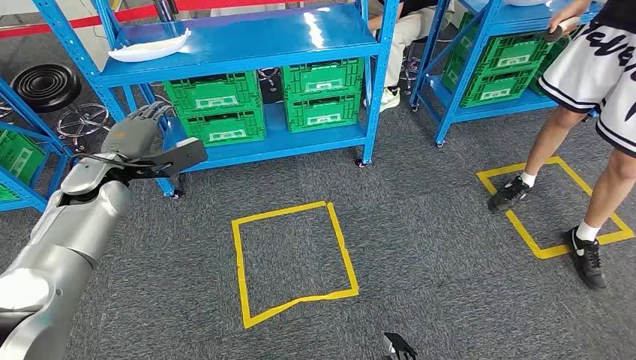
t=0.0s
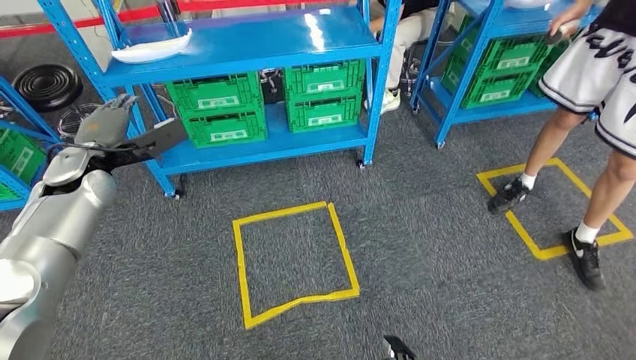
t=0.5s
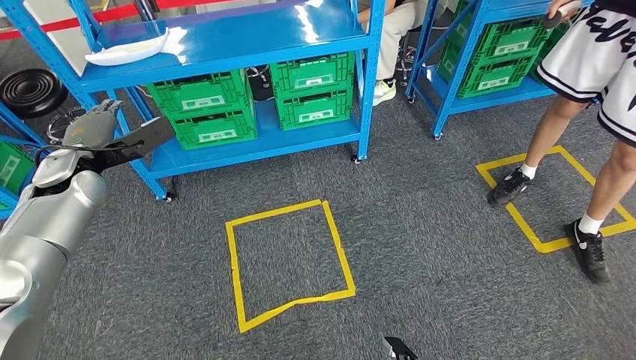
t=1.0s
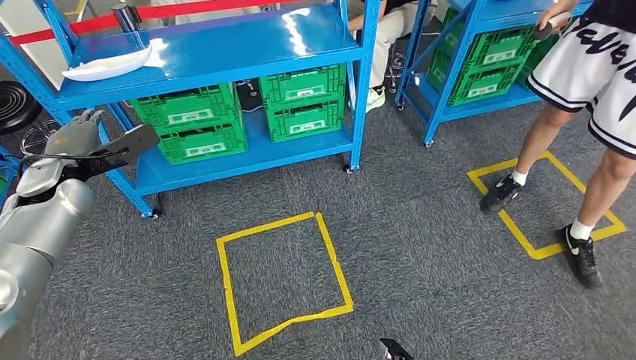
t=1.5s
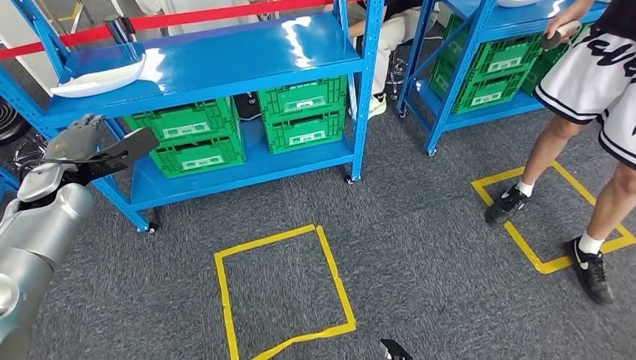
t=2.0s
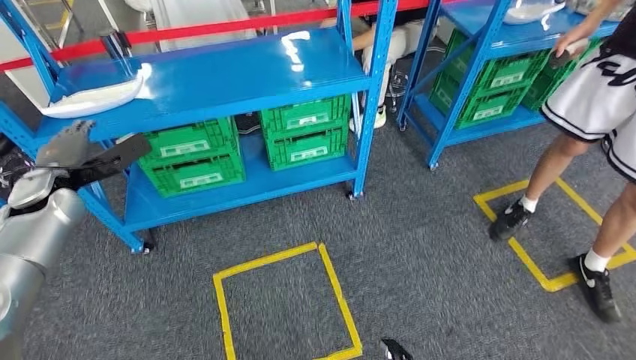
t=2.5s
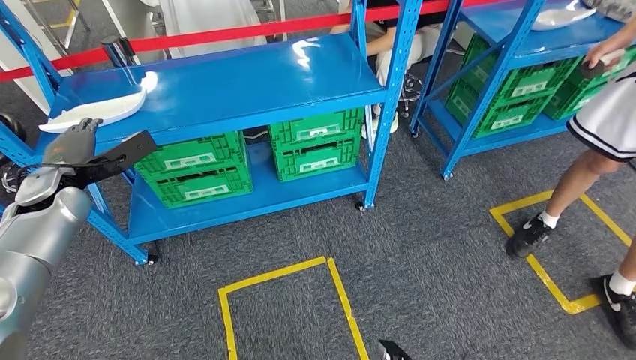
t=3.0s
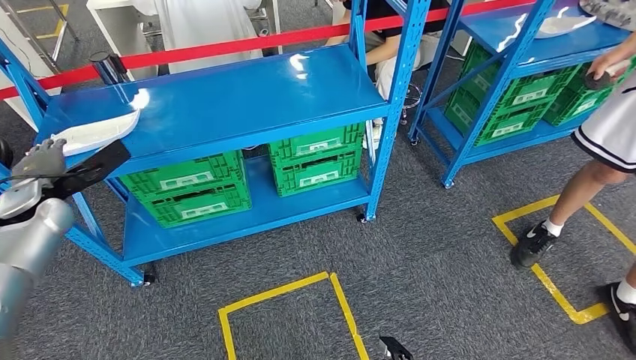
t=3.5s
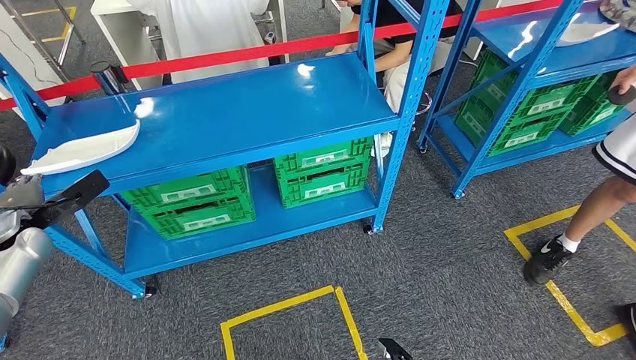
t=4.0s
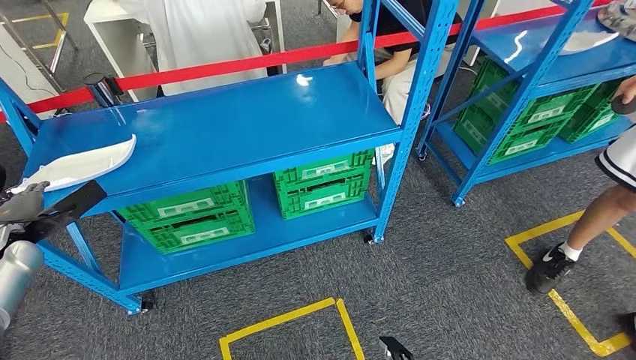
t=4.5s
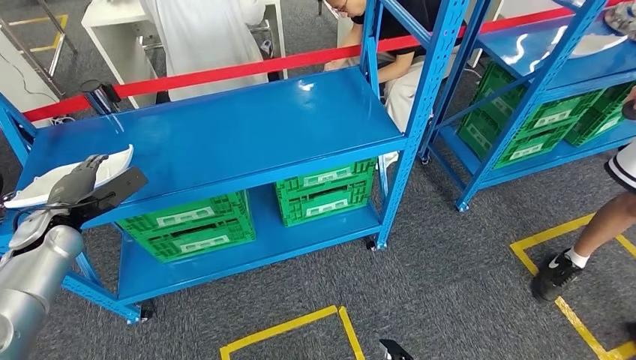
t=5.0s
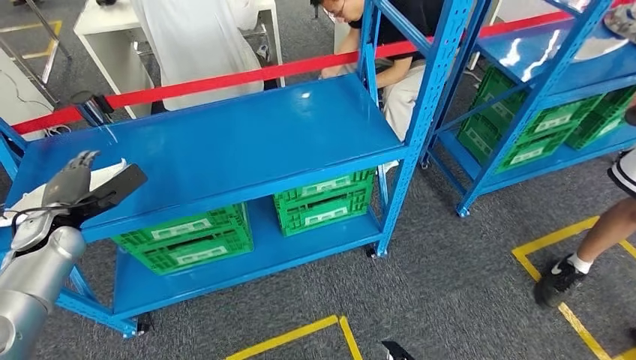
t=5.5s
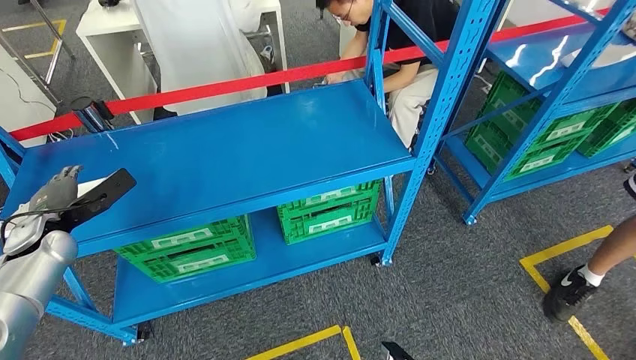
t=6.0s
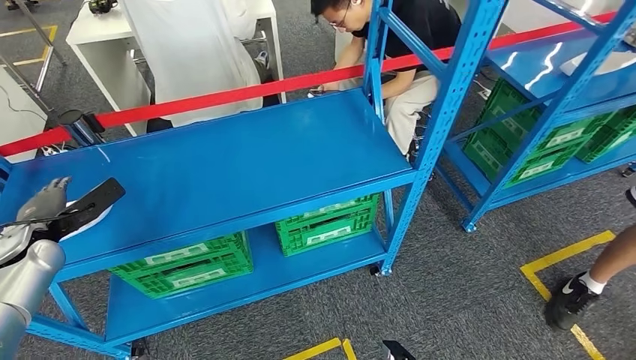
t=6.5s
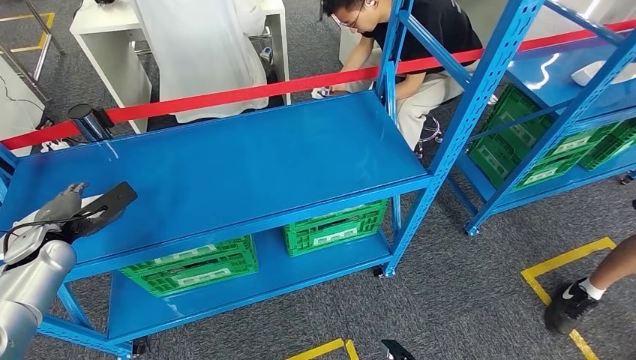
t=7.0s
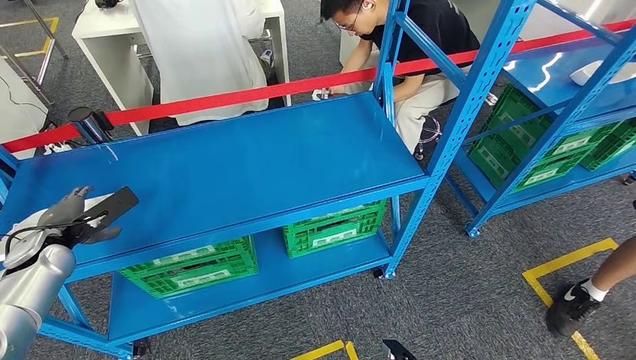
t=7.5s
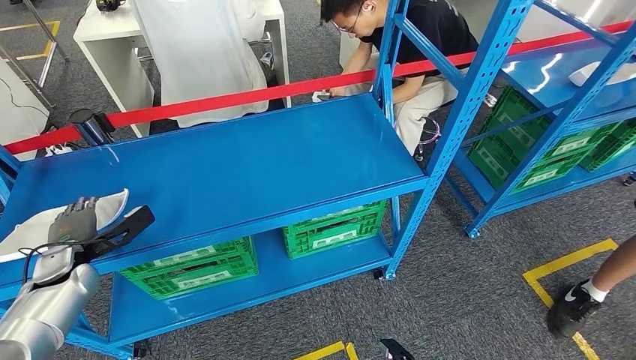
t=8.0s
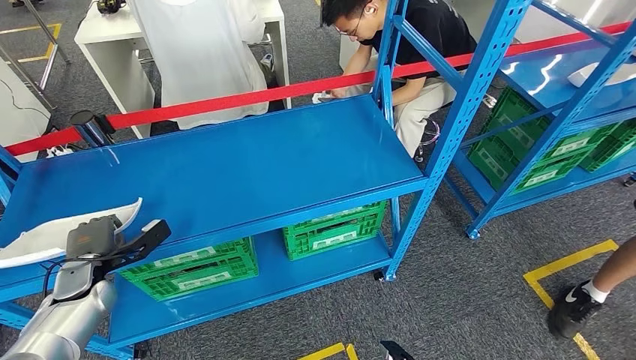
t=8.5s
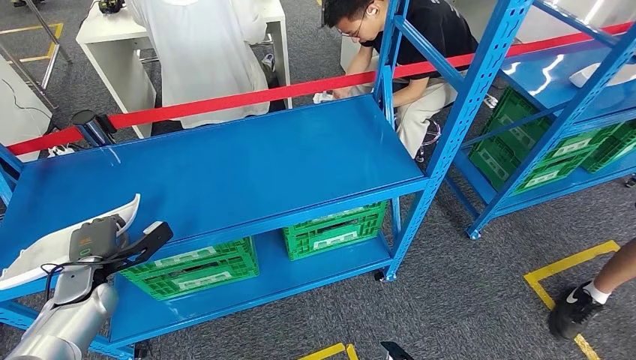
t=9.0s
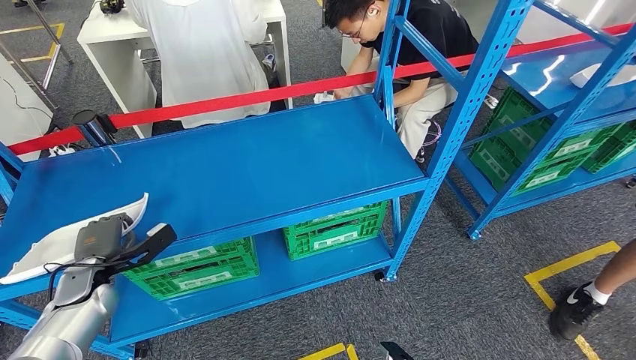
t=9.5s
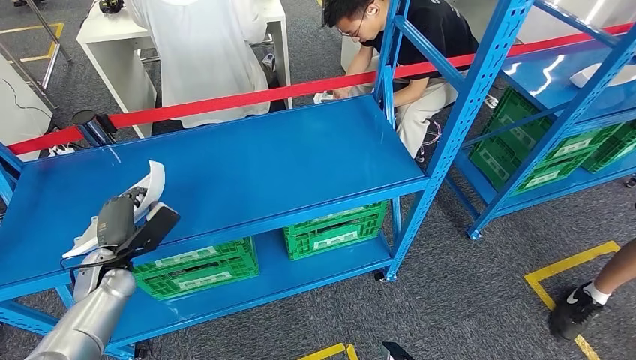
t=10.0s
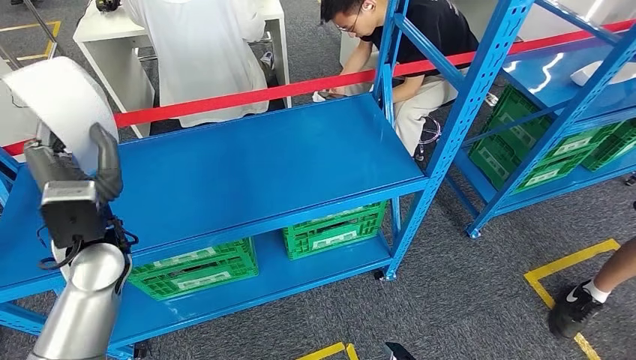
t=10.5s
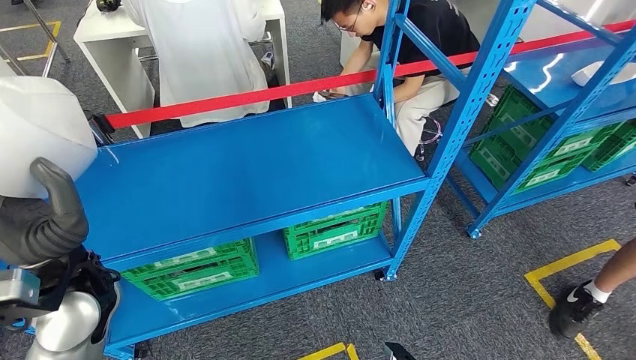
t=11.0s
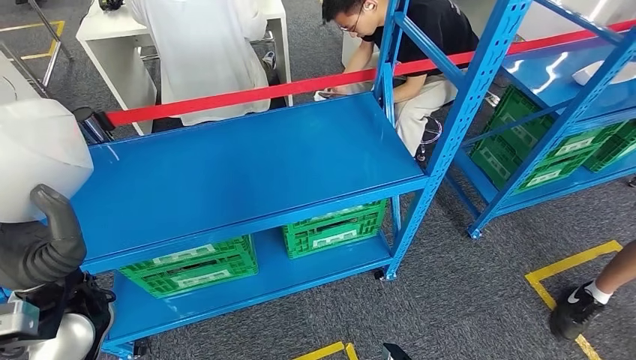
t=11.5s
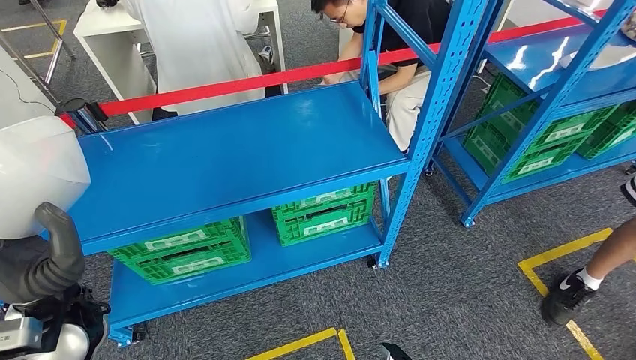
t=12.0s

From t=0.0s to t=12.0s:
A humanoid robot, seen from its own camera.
Step, from t=0.0s to t=11.5s: Pick up the small component from the shelf.
From t=8.0s to t=10.0s: The left hand shifts some 5 cm to the right.

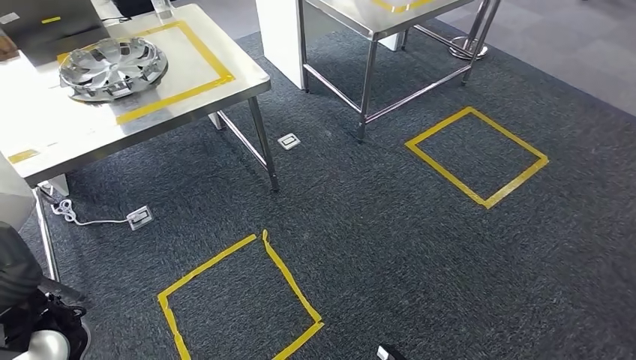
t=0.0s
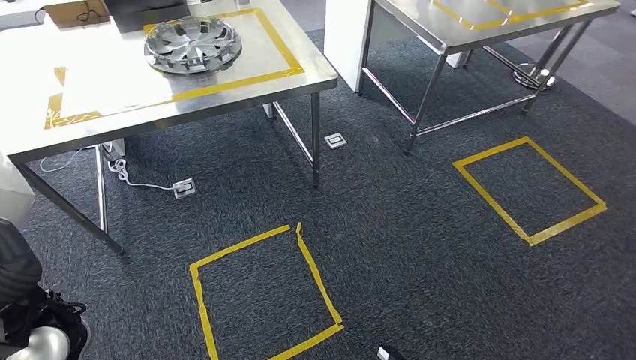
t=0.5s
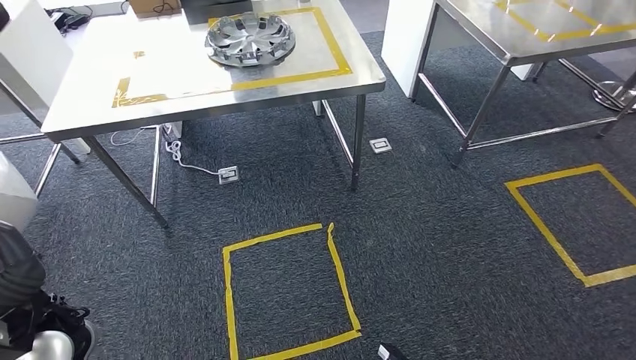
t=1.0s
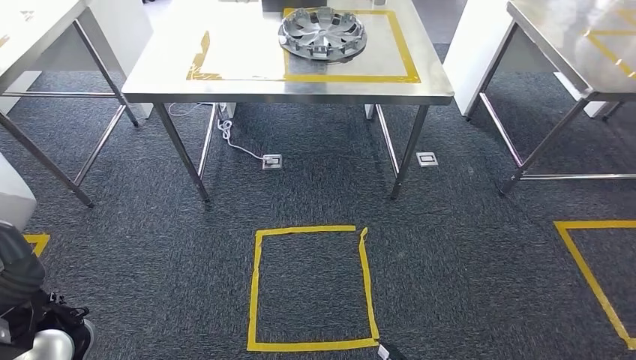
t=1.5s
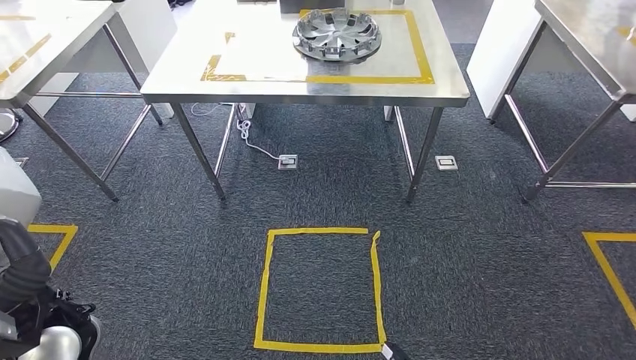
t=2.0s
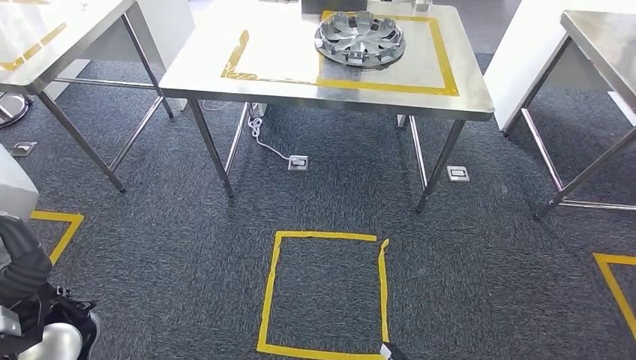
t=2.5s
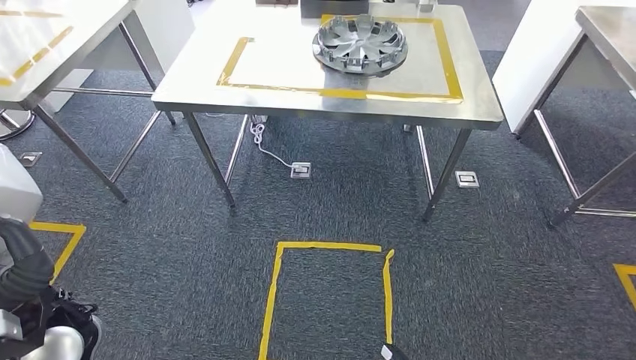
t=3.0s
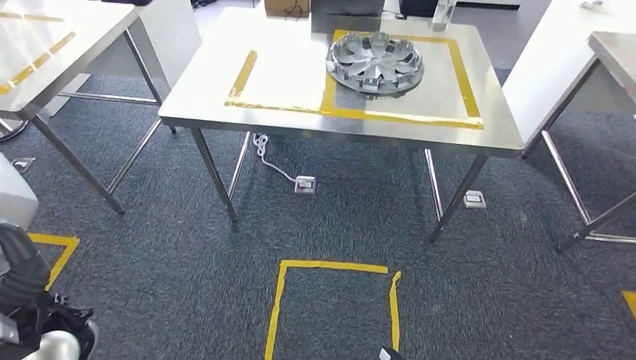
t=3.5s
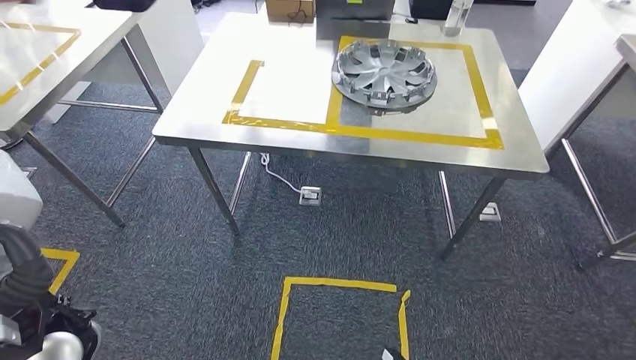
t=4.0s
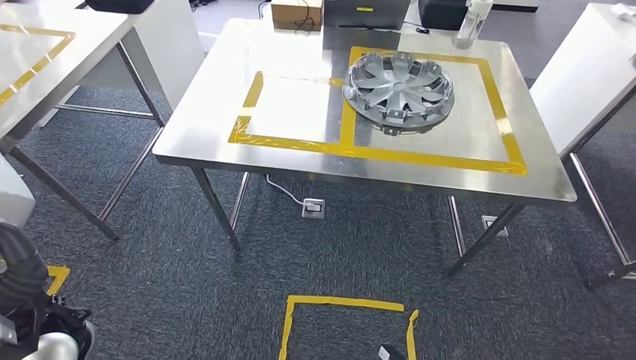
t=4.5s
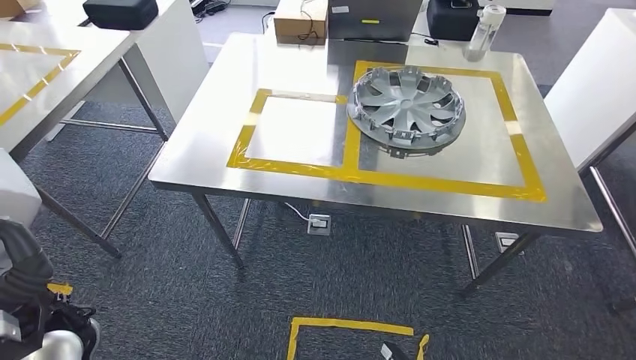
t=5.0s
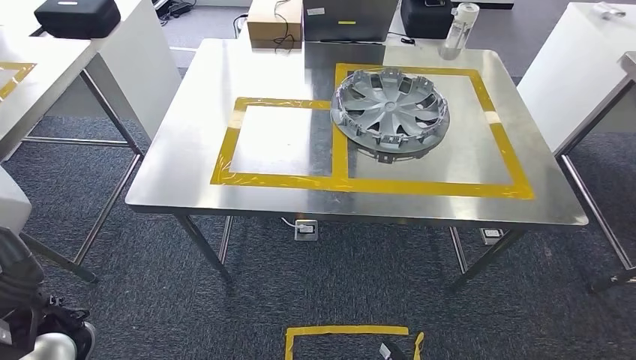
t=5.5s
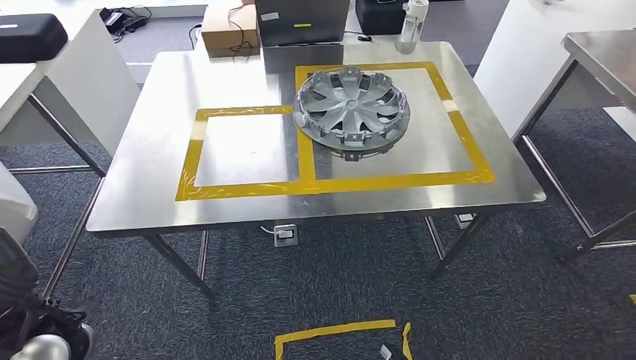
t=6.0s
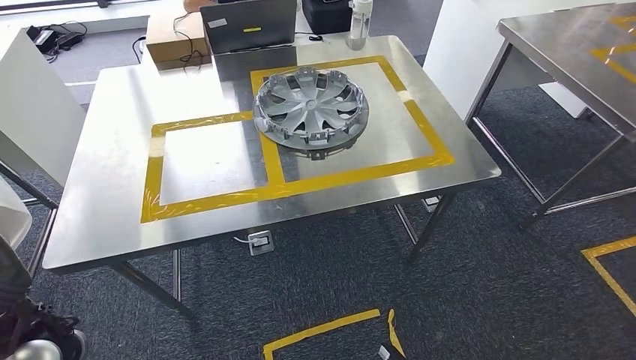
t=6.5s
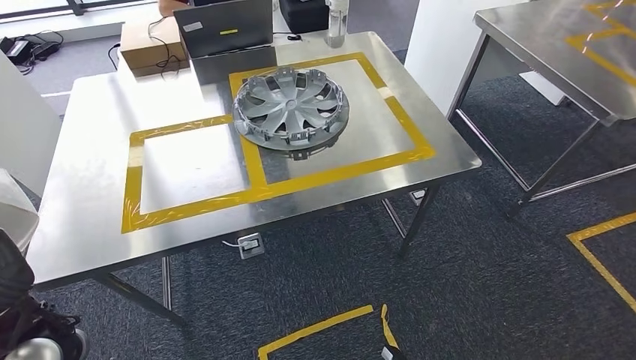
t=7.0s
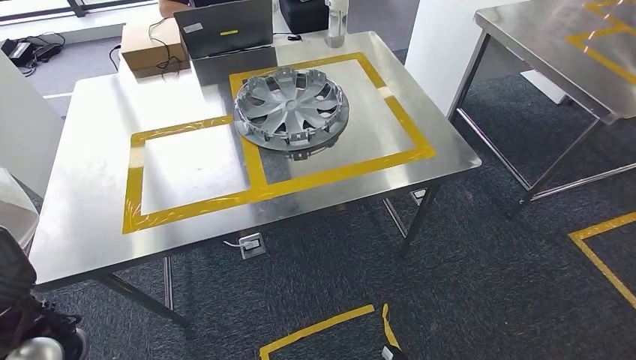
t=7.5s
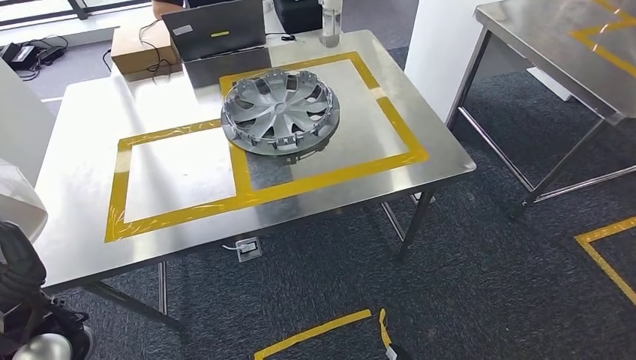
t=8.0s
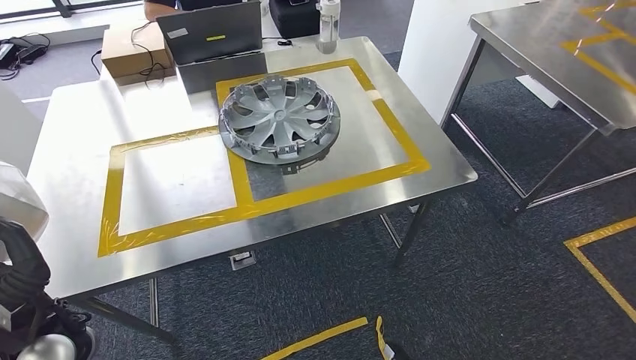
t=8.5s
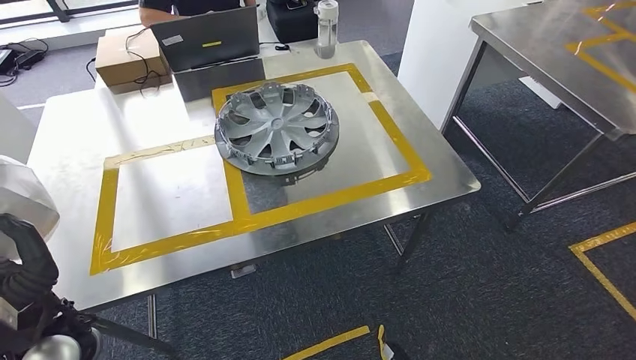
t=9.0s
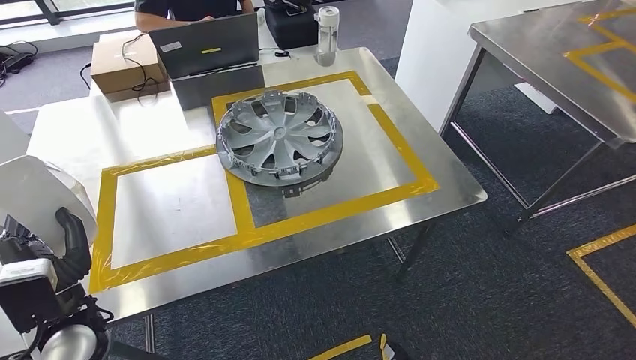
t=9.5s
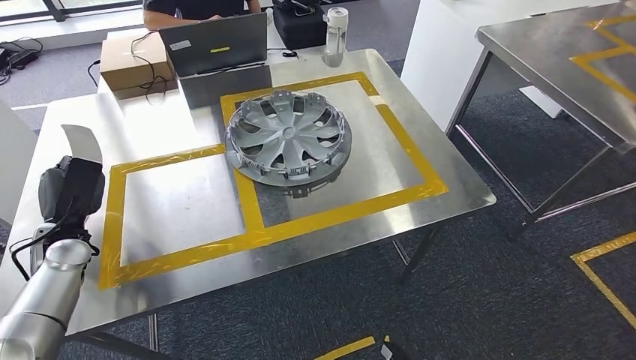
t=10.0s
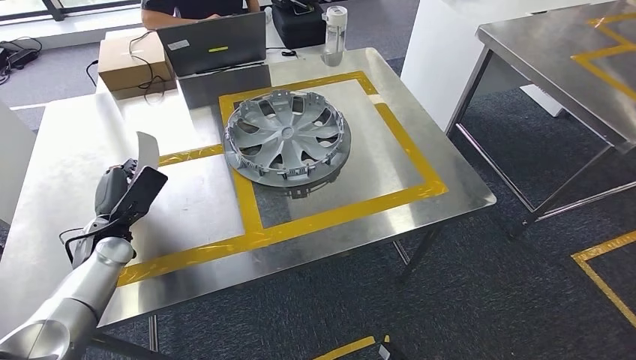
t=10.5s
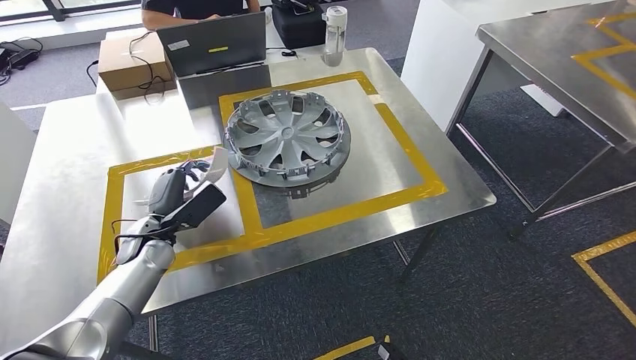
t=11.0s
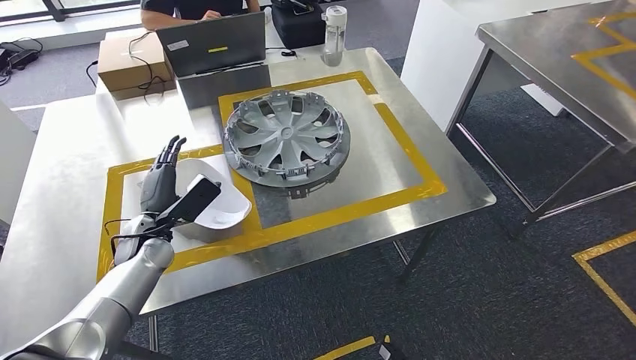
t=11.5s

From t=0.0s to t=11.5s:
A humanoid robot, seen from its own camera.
Step, from t=0.0s to t=8.0s: Move the small component to the workbench.
